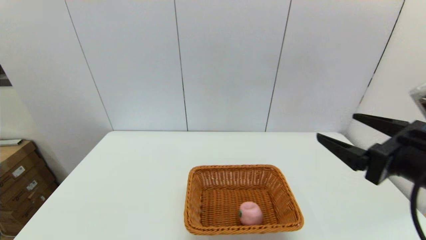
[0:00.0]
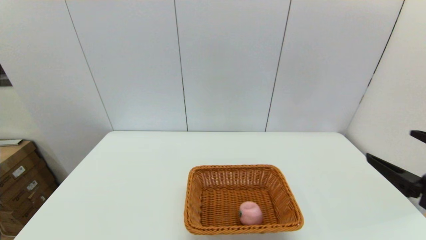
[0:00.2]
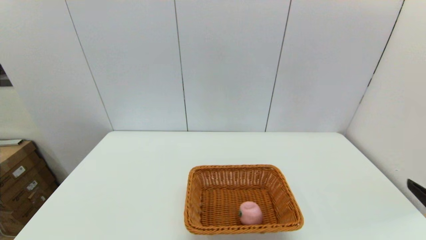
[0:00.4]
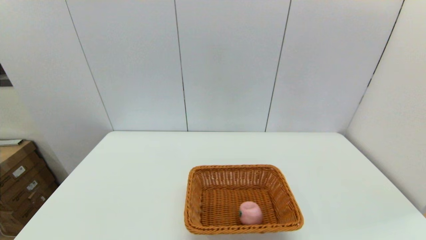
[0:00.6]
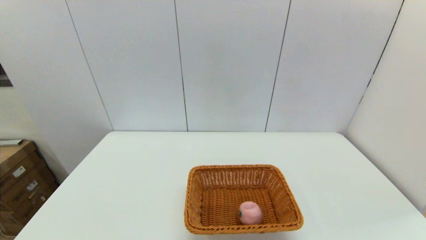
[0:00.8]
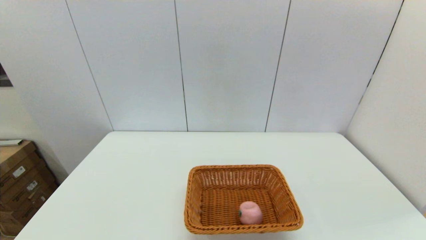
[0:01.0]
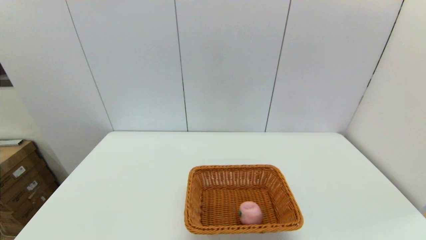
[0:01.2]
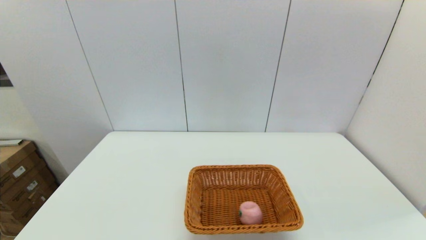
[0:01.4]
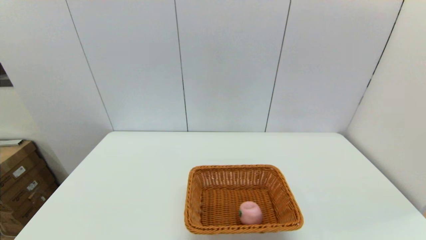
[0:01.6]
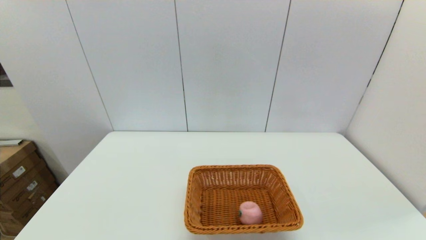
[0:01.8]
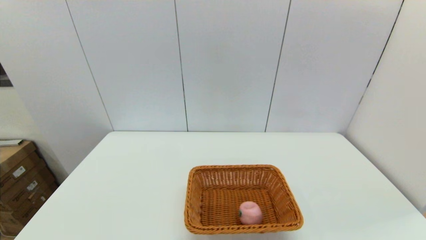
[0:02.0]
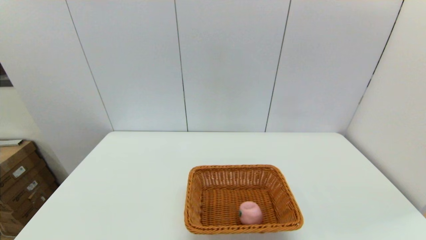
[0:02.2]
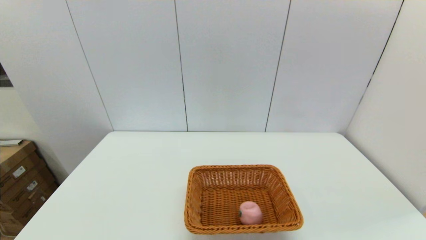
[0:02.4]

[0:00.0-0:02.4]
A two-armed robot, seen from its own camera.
0:00.0 to 0:01.2: The right gripper shifts roughly 20 cm backward, downward and to the right.

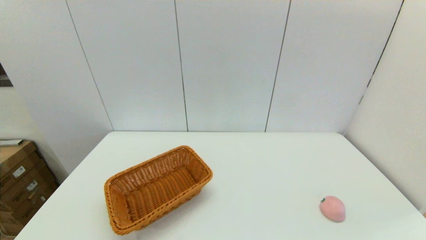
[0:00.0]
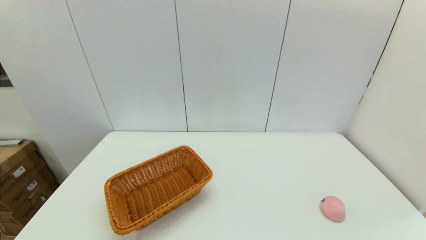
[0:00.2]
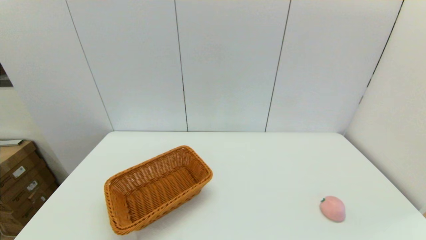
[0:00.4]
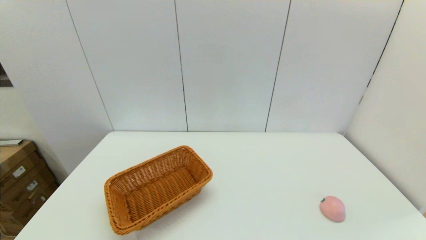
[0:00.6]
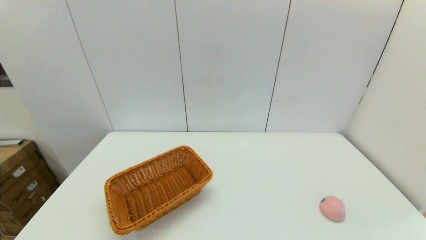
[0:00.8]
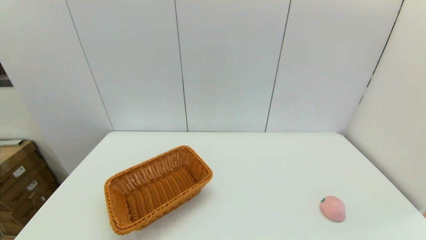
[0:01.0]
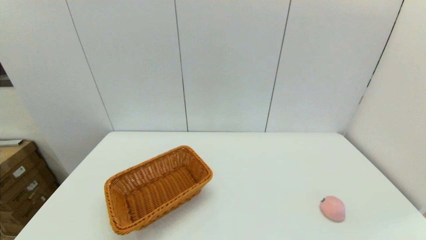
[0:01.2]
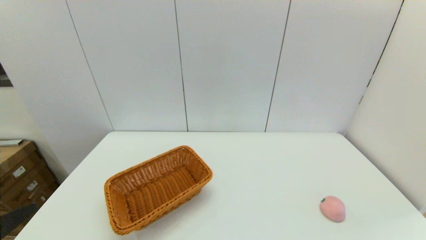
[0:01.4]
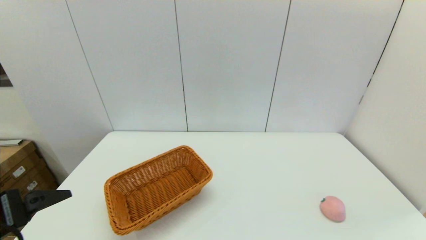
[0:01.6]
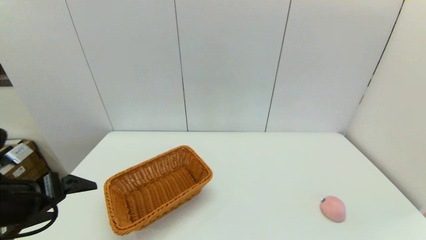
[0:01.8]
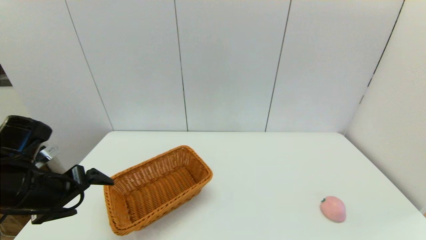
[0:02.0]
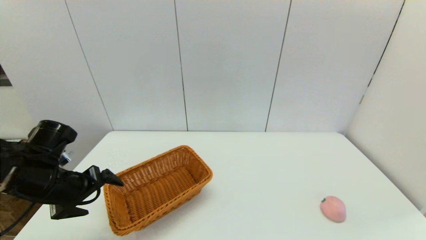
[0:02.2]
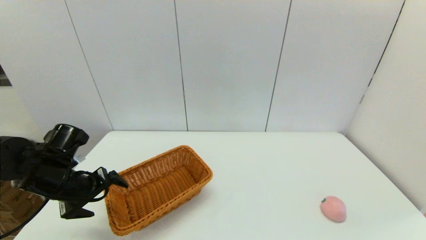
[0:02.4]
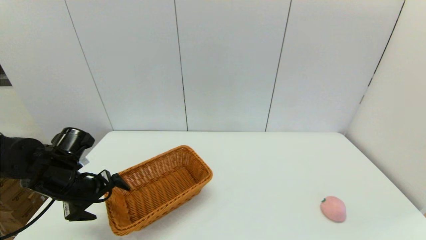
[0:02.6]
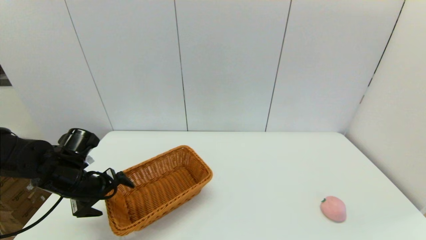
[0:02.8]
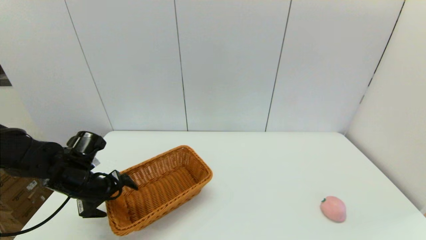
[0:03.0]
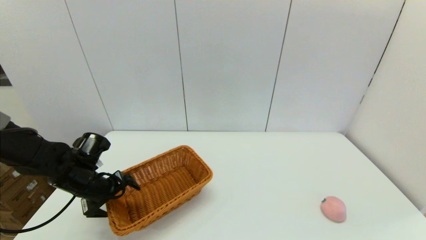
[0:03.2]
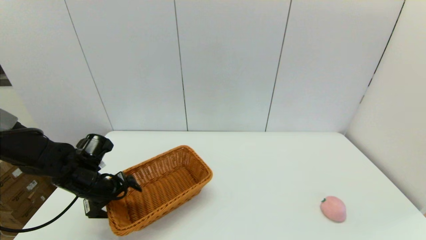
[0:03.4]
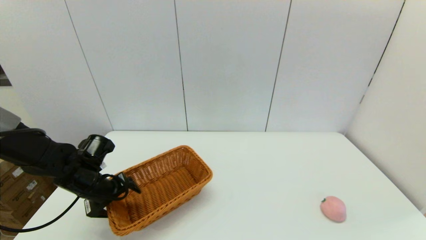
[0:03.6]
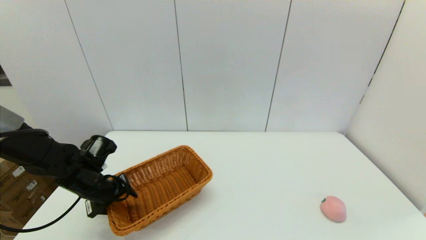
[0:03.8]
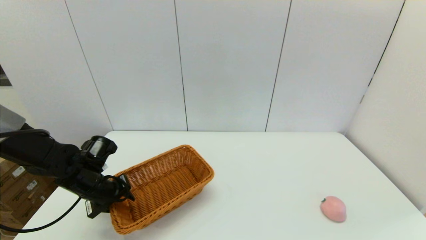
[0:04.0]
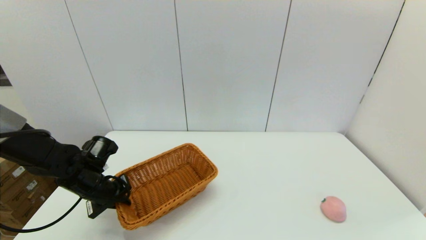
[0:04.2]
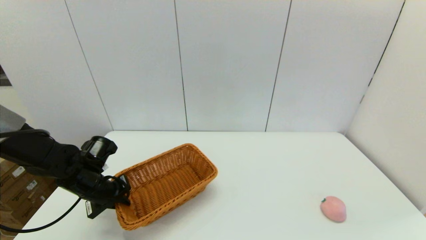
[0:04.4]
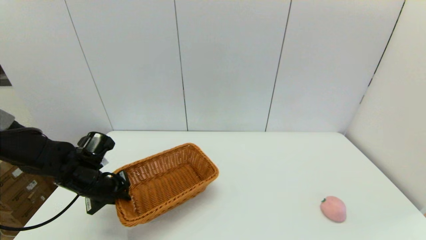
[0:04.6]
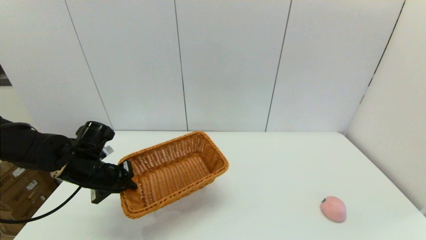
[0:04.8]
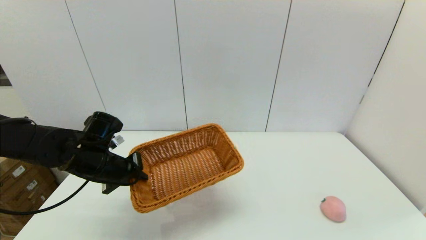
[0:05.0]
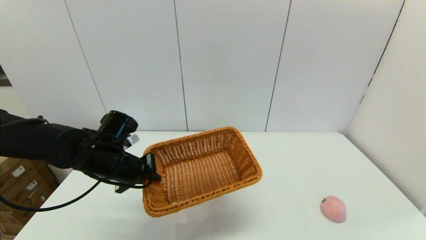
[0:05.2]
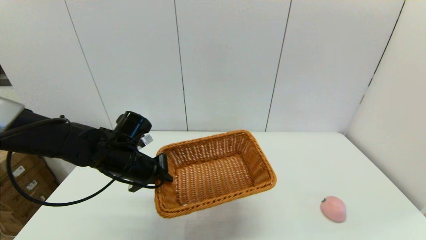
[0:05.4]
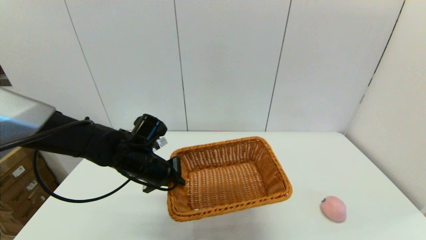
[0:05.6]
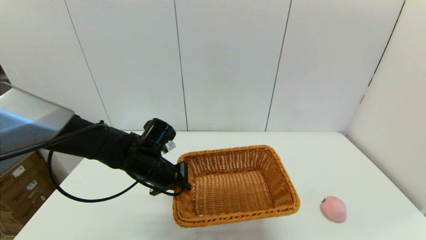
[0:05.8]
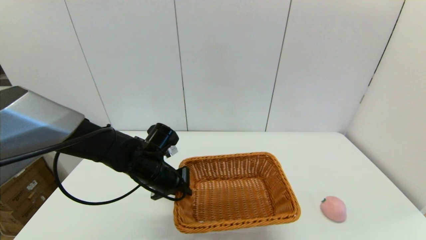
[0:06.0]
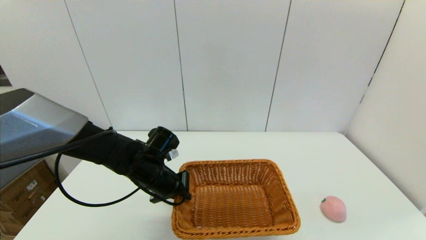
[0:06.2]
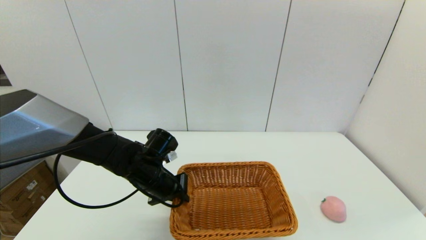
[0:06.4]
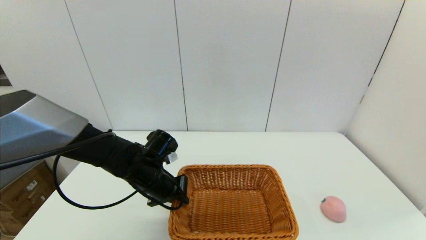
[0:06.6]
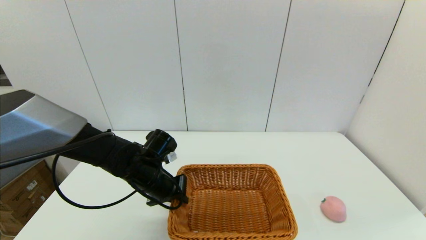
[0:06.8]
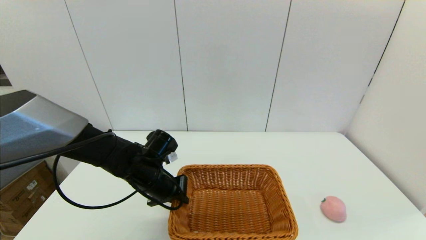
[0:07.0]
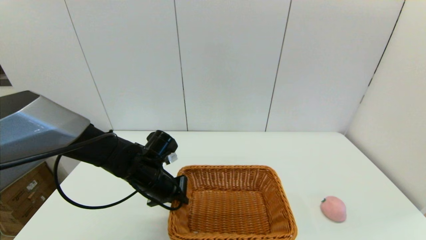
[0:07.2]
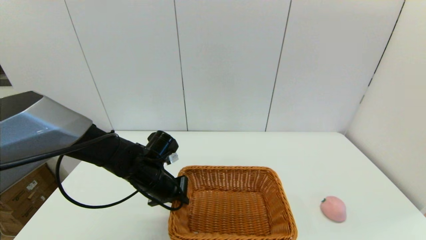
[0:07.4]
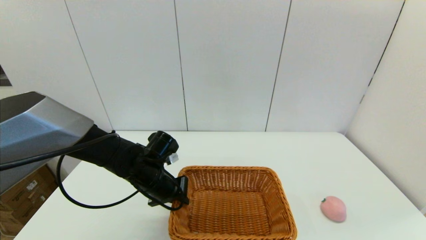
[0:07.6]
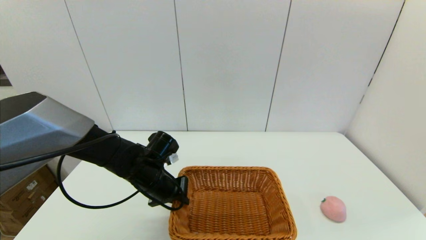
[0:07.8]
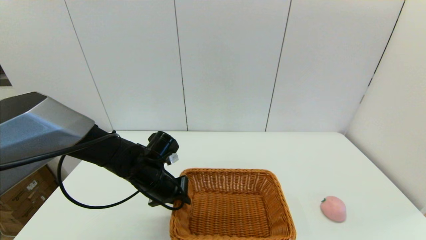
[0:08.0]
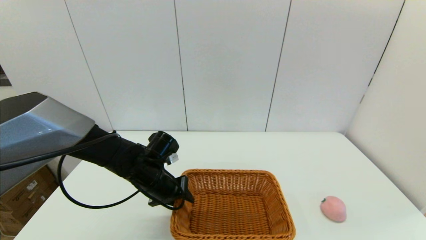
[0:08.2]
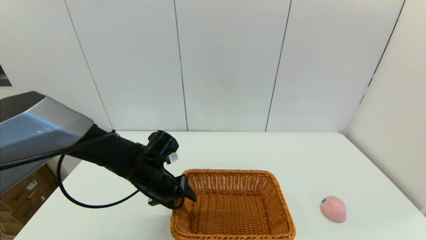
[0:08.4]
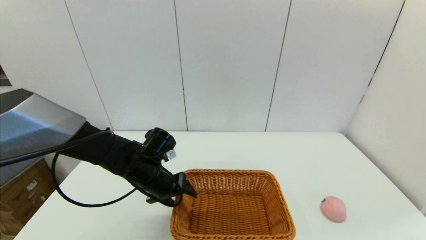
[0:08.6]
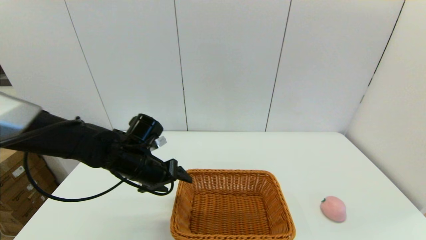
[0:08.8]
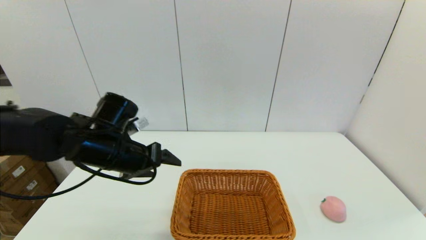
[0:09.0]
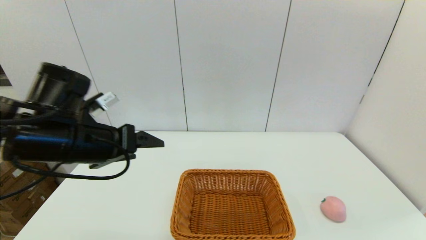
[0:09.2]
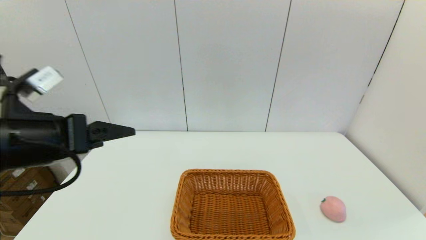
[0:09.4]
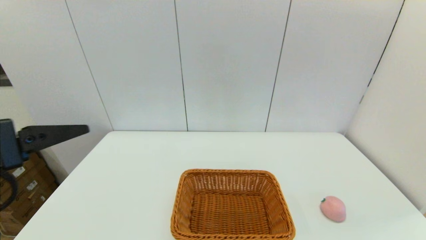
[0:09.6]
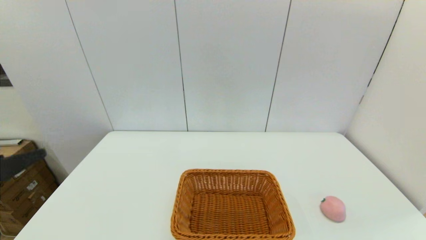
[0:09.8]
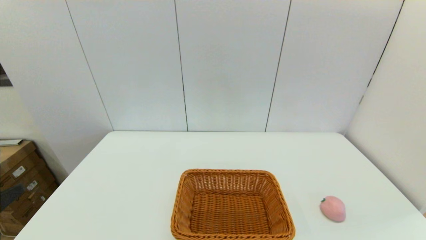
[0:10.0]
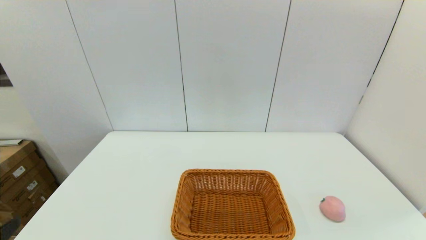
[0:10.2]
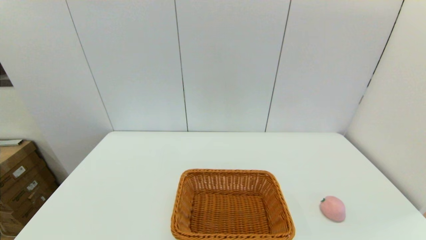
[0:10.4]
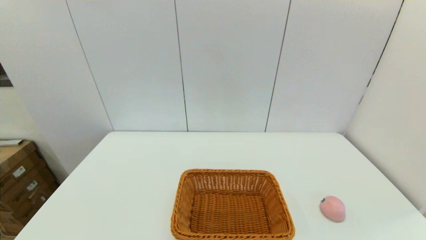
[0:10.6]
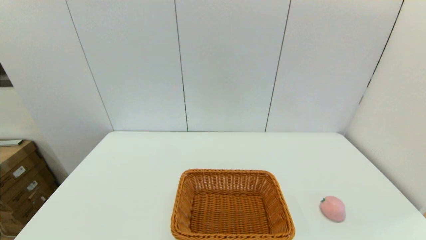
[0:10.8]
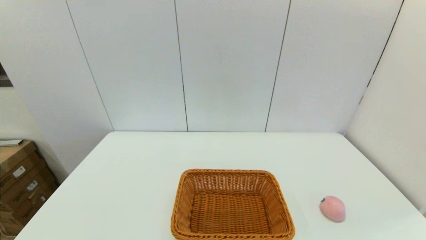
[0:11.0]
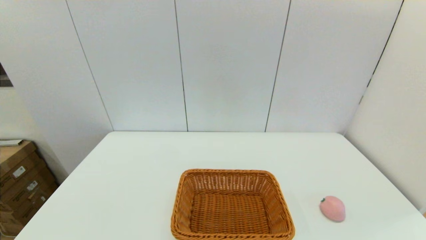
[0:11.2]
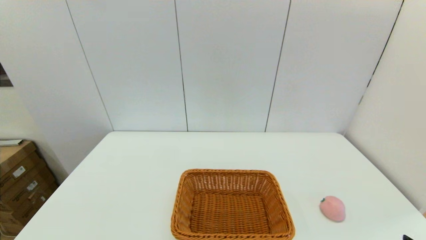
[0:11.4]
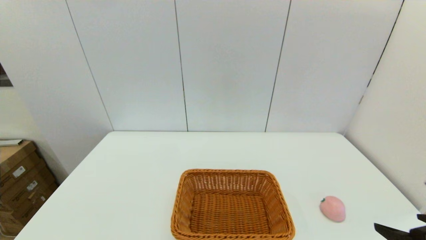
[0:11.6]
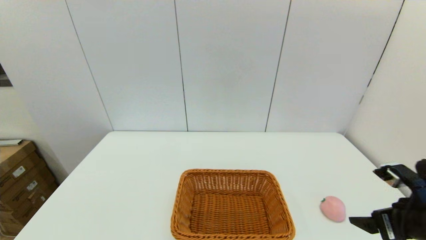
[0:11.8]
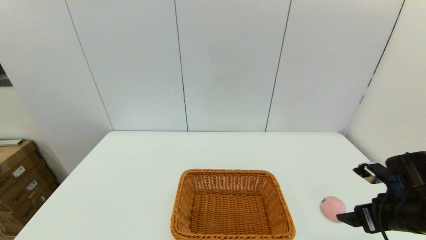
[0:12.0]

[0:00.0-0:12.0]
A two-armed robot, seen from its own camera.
Step, 0:00.0 to 0:04.2: Grasp the light basket with the left gripper.
Step, 0:04.4 to 0:08.2: Place the light basket on the middle of the table with the left gripper.
0:00.0 to 0:01.6: The left gripper moves upward and forward, approximately 15 cm.
0:01.6 to 0:03.0: The left gripper goes approximately 20 cm forward and downward.
0:03.0 to 0:04.4: The left gripper closes up.
0:04.4 to 0:06.0: The left gripper goes approximately 15 cm to the right.
0:06.0 to 0:07.6: The grippers make only small movements.
0:07.6 to 0:09.0: The left gripper moves upward, some 10 cm, and opens.
0:09.0 to 0:10.4: The left gripper is displaced backward and to the left by some 30 cm.
0:10.4 to 0:12.0: The right gripper heads forward, covering about 20 cm.

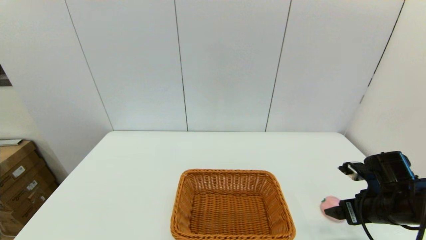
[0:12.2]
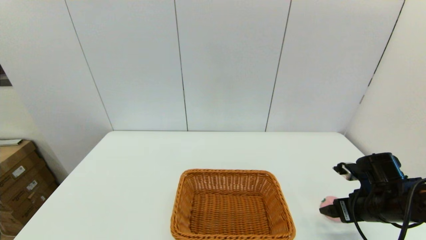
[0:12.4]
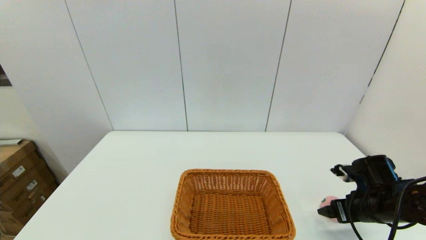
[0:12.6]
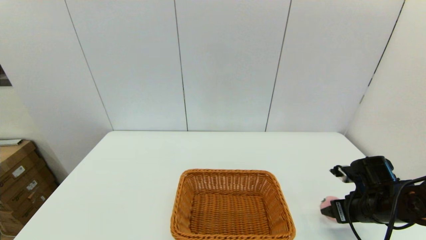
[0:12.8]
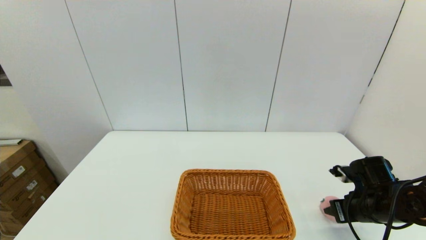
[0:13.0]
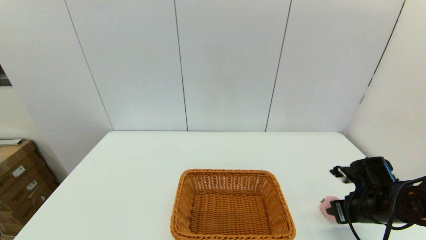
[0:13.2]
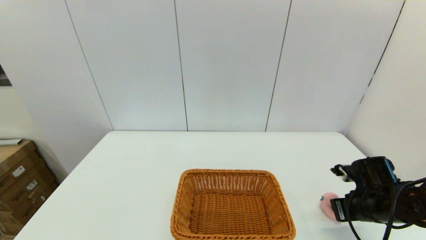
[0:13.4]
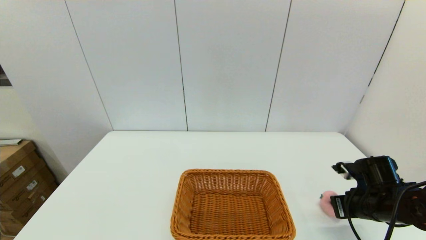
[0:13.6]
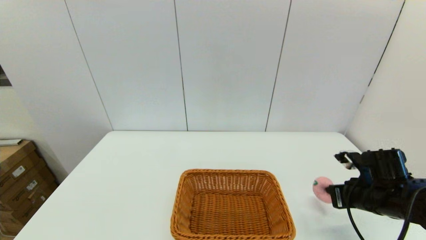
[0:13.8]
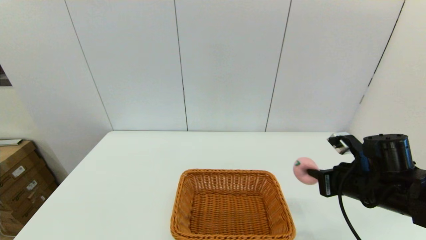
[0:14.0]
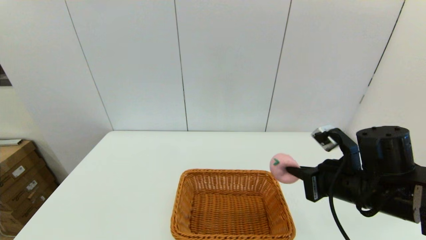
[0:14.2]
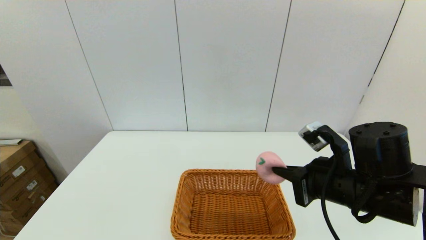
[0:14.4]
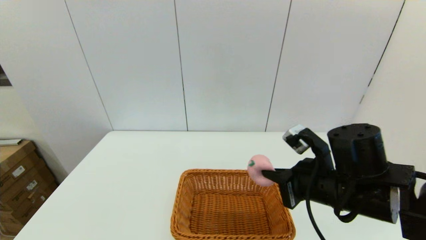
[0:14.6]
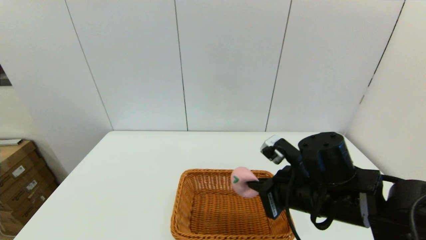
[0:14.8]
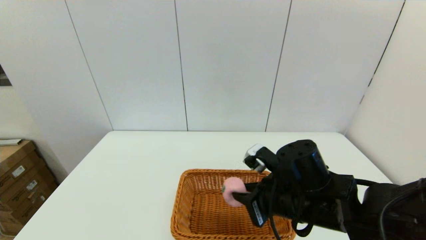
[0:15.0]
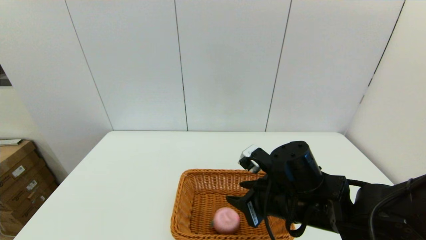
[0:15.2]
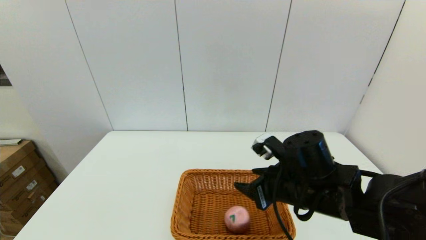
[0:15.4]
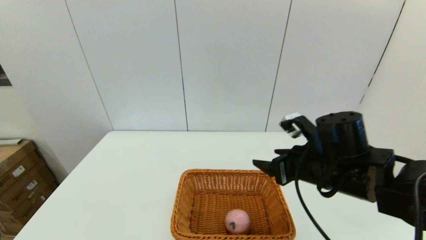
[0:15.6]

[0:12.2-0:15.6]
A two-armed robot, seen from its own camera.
Step, 0:13.4 to 0:15.2: Place the peach into the light basket with the right gripper.
0:12.2 to 0:13.8: The right gripper closes.
0:13.8 to 0:15.6: The right gripper heads to the left and upward, covering about 15 cm, and opens up.
